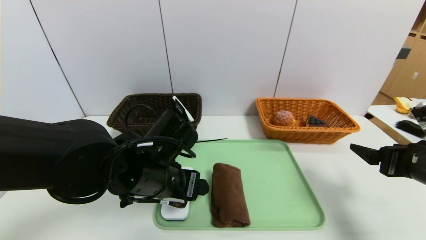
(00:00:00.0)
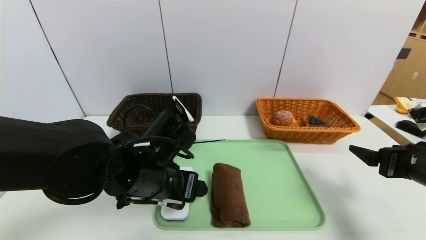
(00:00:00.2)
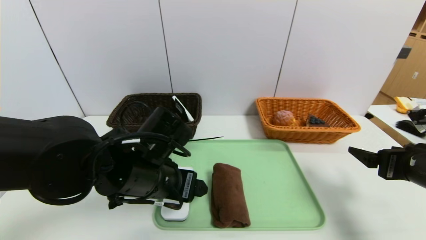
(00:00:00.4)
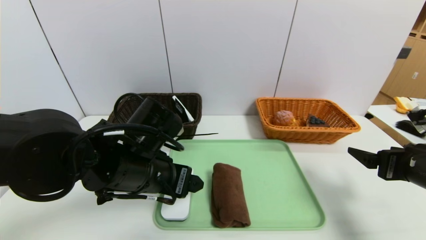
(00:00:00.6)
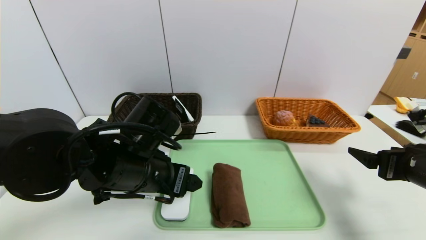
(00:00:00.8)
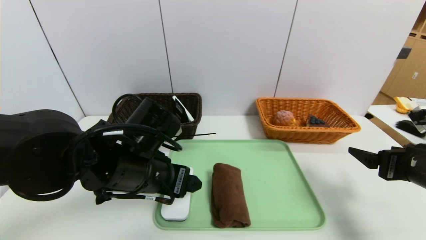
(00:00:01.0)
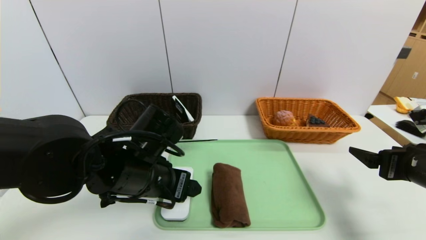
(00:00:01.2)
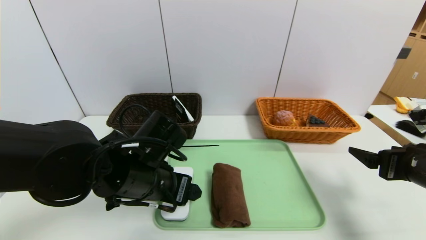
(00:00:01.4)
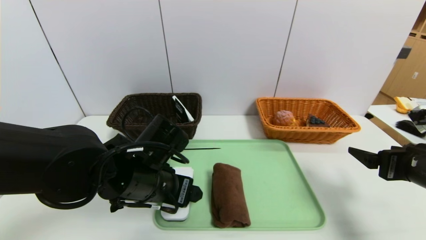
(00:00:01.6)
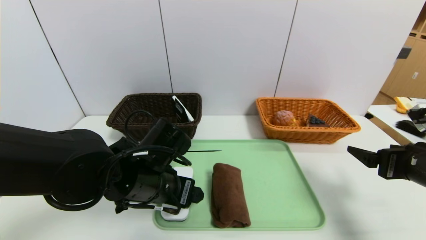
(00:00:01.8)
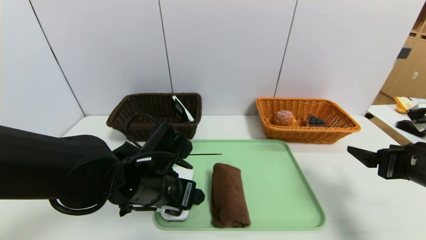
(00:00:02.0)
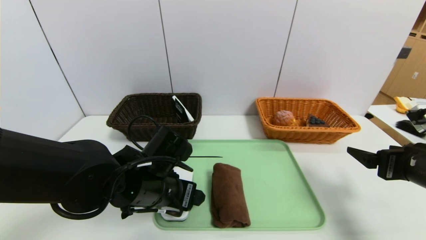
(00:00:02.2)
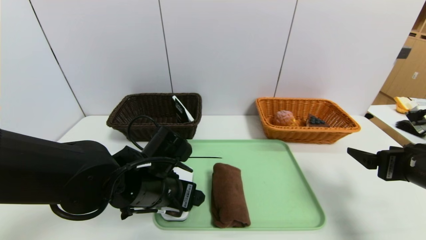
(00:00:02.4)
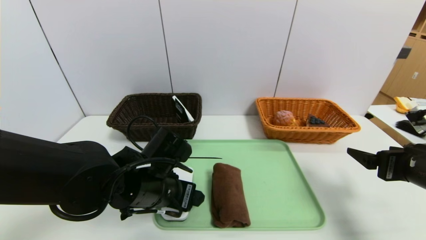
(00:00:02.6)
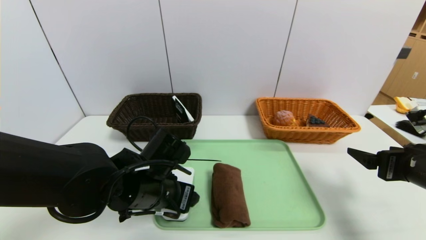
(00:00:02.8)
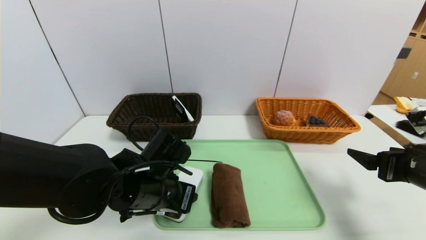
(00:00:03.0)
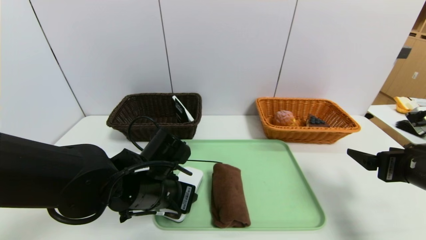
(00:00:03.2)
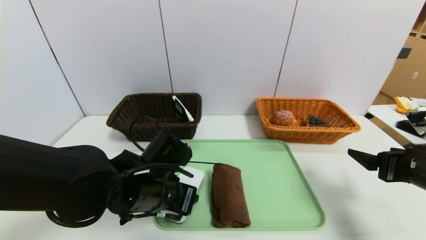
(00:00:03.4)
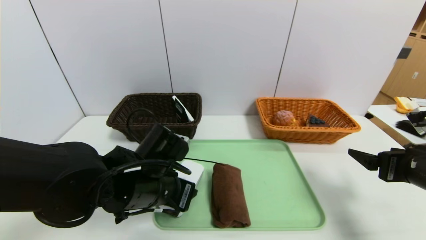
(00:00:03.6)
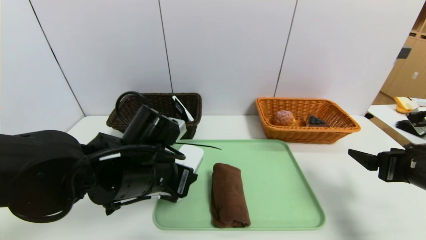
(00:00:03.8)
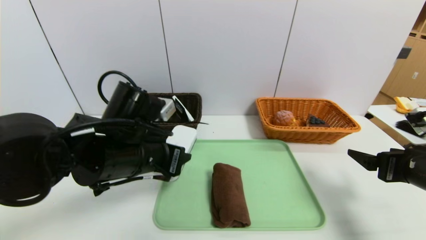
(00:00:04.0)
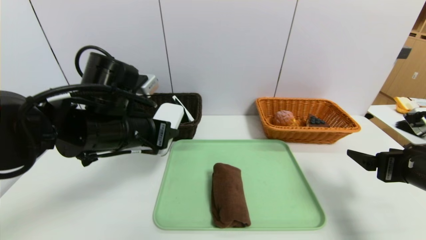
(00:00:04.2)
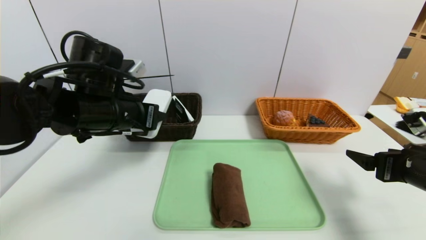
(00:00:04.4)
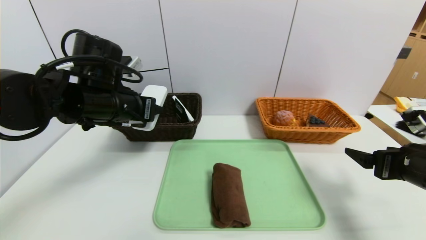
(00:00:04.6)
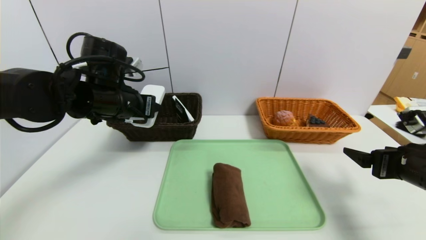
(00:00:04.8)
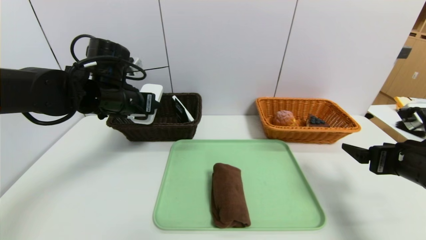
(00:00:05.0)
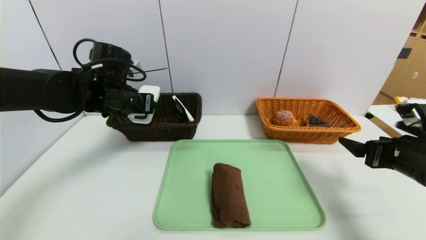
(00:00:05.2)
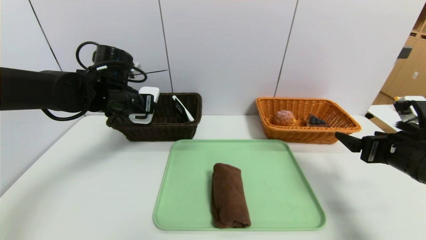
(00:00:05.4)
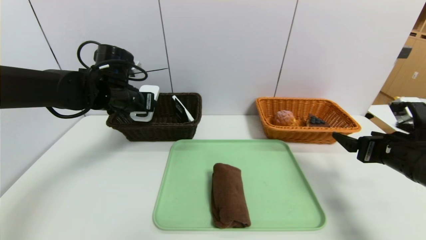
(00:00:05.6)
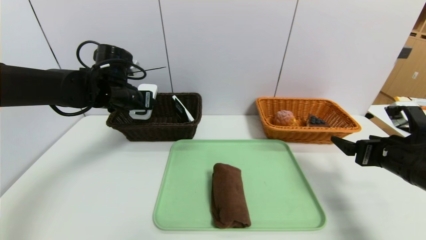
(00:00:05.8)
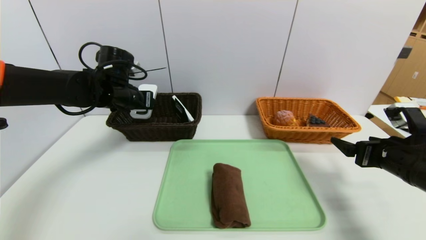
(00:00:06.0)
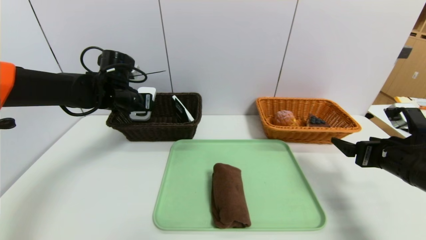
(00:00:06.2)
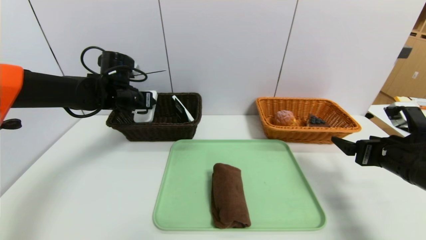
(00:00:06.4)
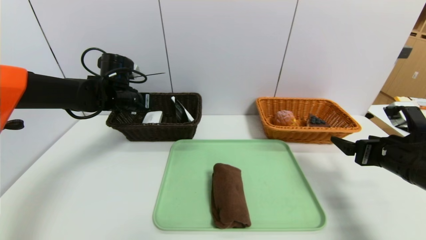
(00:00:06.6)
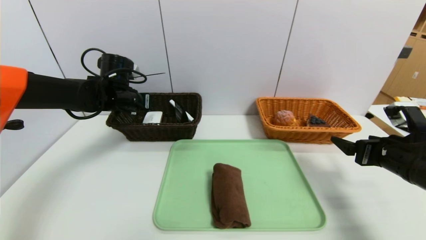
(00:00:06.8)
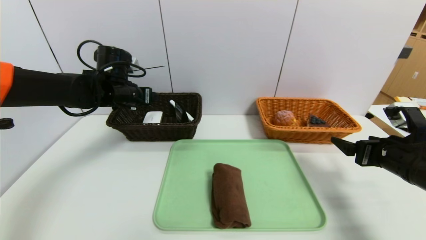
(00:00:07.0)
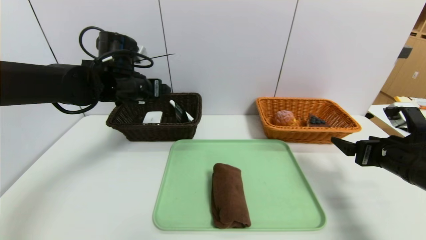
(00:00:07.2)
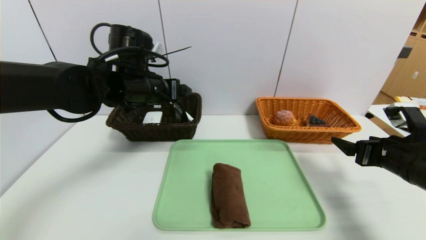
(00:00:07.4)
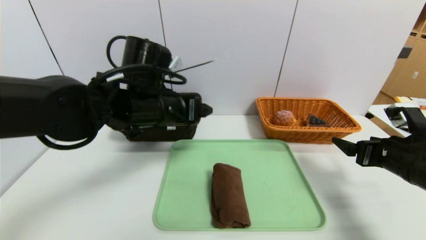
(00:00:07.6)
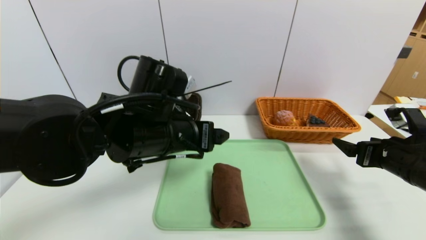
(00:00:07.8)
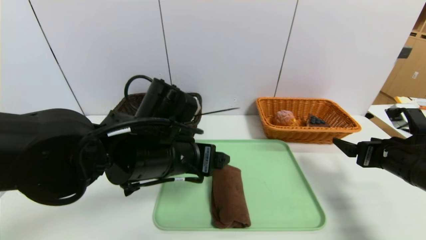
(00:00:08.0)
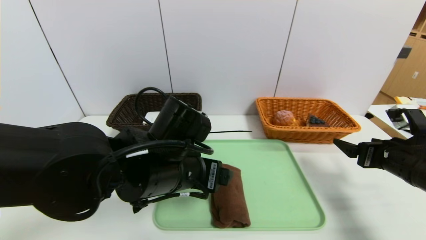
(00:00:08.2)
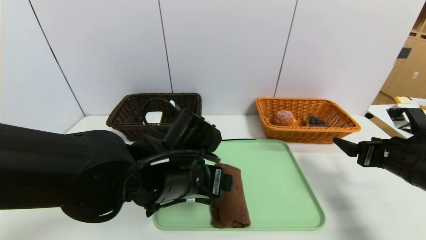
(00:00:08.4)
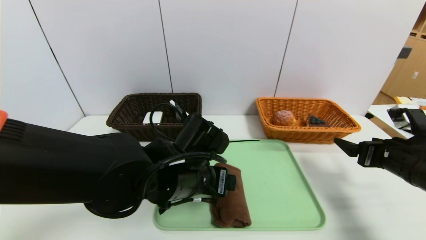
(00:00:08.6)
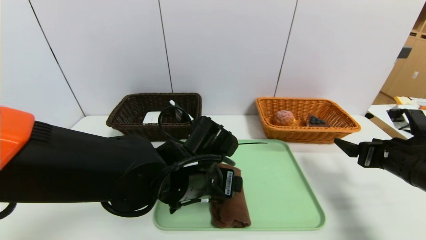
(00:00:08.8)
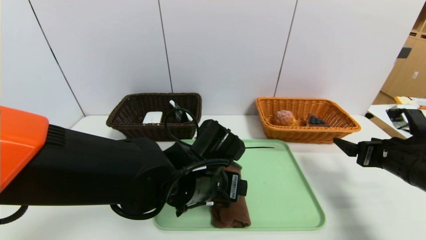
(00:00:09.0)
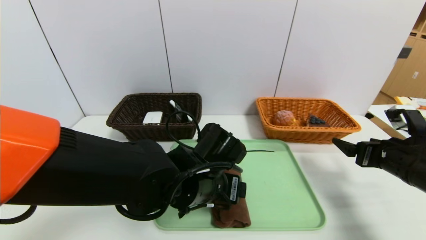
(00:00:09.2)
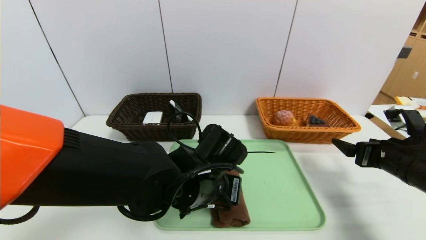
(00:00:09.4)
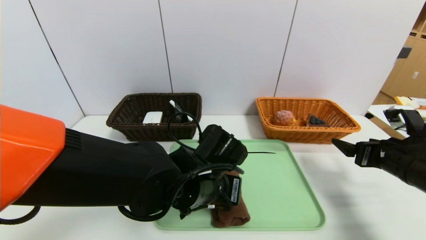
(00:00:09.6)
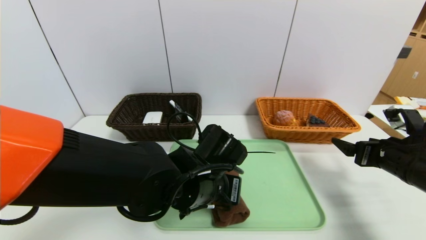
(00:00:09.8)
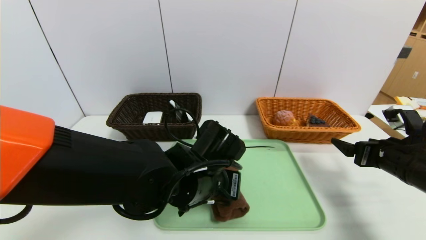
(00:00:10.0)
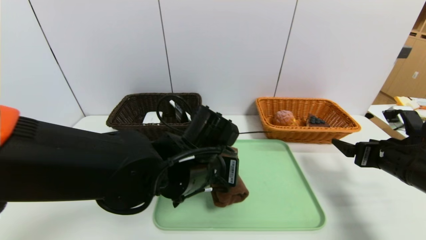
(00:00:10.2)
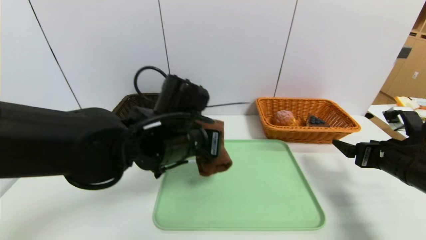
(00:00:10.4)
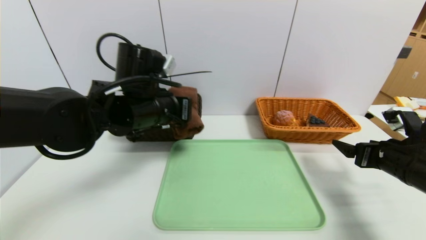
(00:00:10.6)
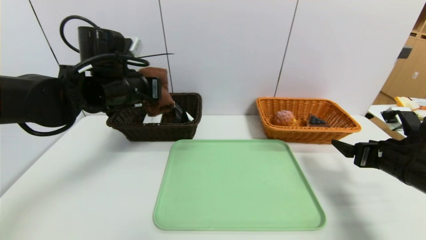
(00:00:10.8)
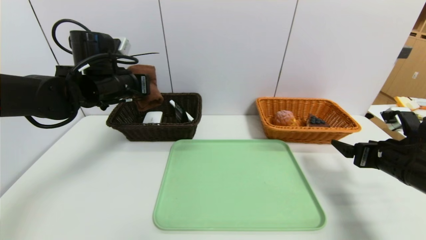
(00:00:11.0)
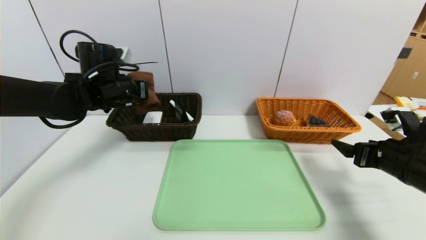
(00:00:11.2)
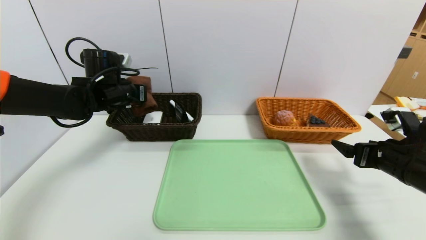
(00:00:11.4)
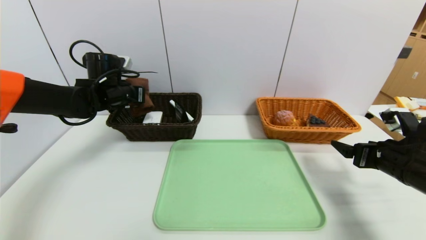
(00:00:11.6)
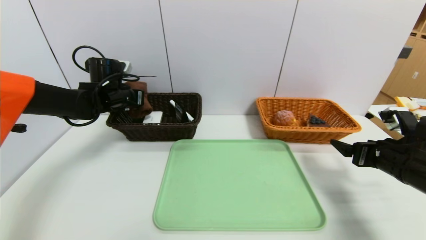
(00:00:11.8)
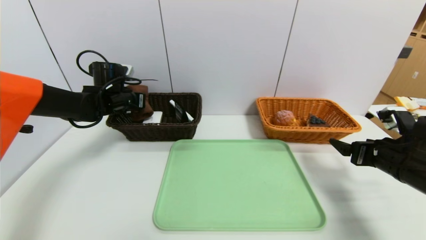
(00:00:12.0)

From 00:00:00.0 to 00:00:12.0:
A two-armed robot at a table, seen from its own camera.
Task of the whole recording: place the food in the right basket with the right gripper, and place the non food items in the left basket with the left gripper.
Step, from 00:00:00.0 to 00:00:06.8: Grasp the soap and put it in the left basket.
From 00:00:00.0 to 00:00:01.6: There are only small adjustments of the grippers.
From 00:00:01.6 to 00:00:03.0: The left gripper closes its fingers.
From 00:00:03.0 to 00:00:04.4: The left gripper travels upward and to the left by approximately 15 cm.
From 00:00:04.4 to 00:00:06.0: The left gripper travels forward by some 10 cm.
From 00:00:06.0 to 00:00:07.6: The left gripper travels backward and to the right by approximately 15 cm, and opens up.
From 00:00:07.6 to 00:00:09.0: The left gripper moves downward and to the right, approximately 10 cm.
From 00:00:09.0 to 00:00:10.4: The left gripper is displaced upward by some 5 cm, and closes up.
From 00:00:10.4 to 00:00:12.0: The left gripper shifts some 25 cm to the left and forward.

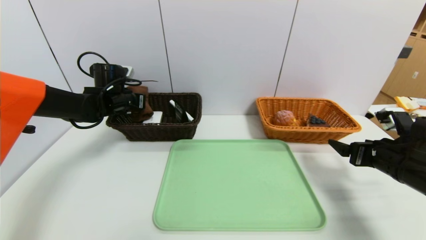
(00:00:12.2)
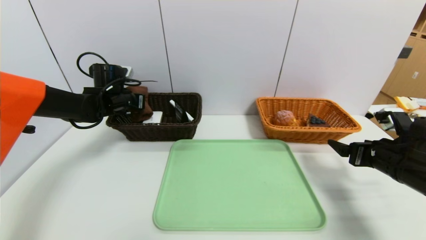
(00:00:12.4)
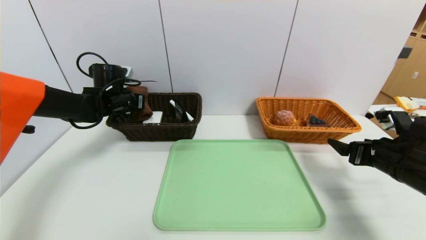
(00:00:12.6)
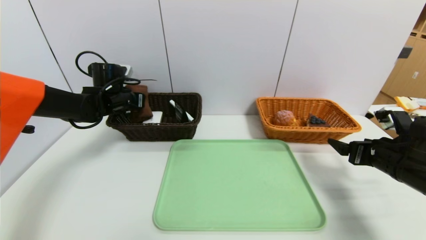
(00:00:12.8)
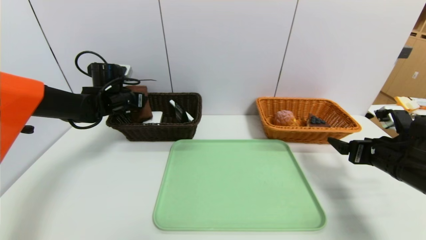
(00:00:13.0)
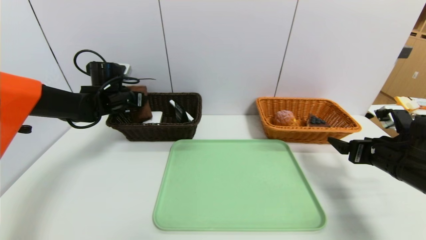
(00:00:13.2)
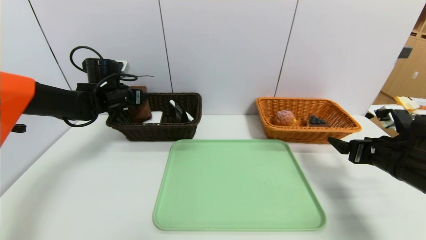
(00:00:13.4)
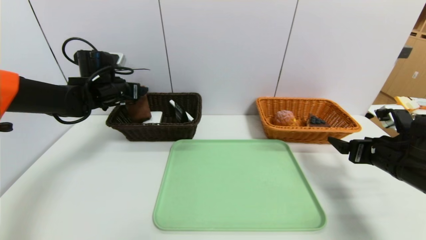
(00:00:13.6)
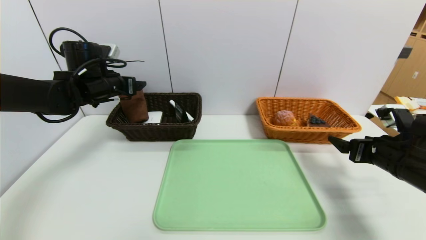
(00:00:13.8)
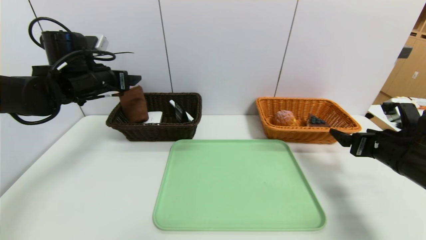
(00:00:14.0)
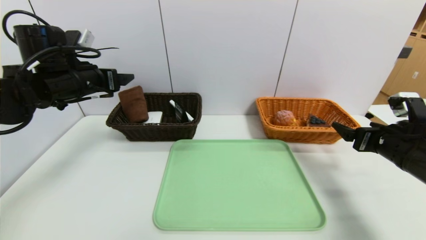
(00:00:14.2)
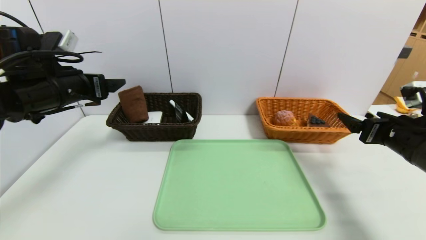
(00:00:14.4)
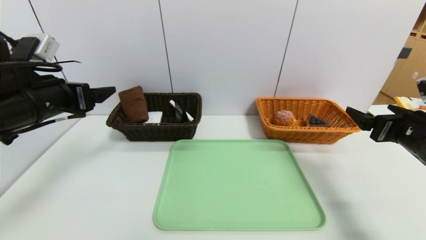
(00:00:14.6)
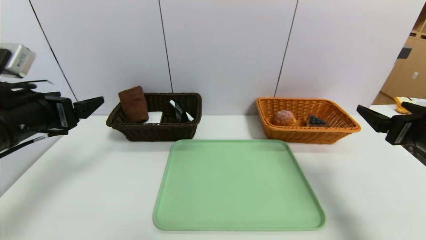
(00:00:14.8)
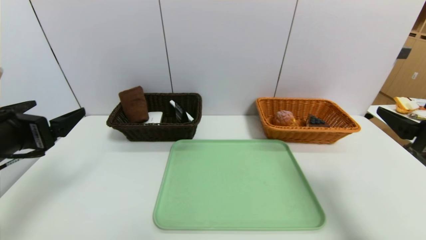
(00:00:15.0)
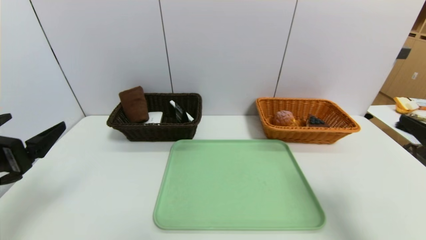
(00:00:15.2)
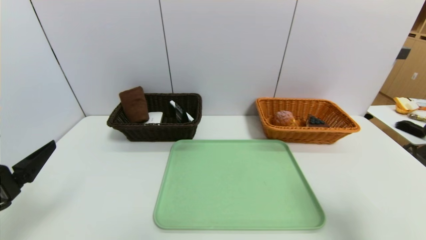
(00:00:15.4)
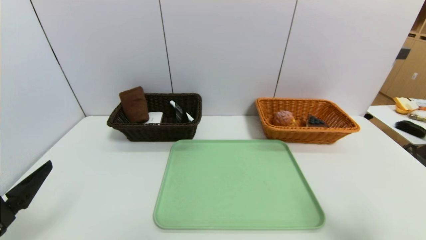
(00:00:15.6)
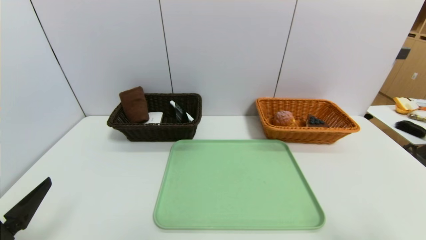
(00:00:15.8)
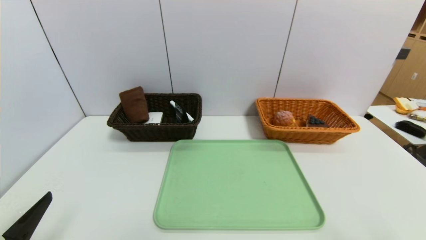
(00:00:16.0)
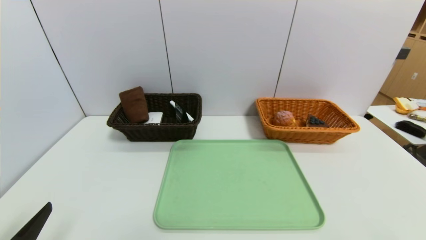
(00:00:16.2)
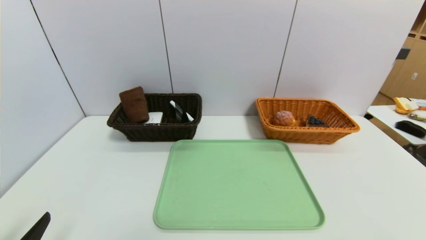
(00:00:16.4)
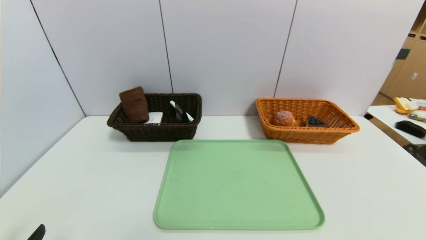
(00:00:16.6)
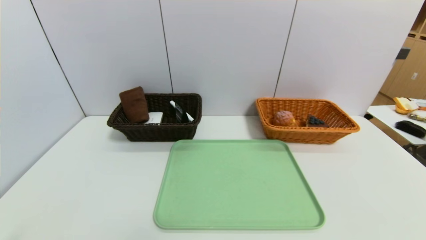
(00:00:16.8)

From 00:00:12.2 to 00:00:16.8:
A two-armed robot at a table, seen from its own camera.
Task of the whole recording: place the food in the right basket with the right gripper, and place the non food items in the left basket with the left gripper.
From 00:00:12.2 to 00:00:13.8: The left gripper shifts approximately 5 cm upward, and opens.
From 00:00:13.8 to 00:00:15.2: The left gripper shifts some 25 cm backward. The right gripper travels backward and upward by roughly 15 cm.
From 00:00:15.2 to 00:00:16.8: Both grippers travel together backward and downward, some 20 cm.
